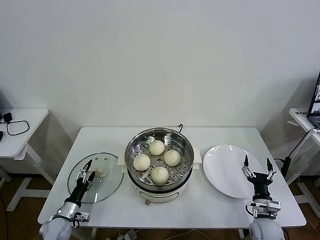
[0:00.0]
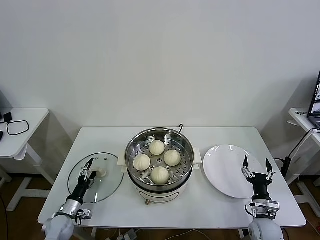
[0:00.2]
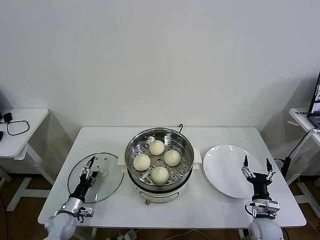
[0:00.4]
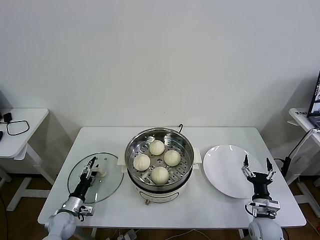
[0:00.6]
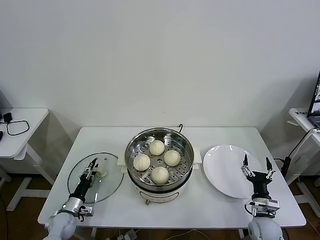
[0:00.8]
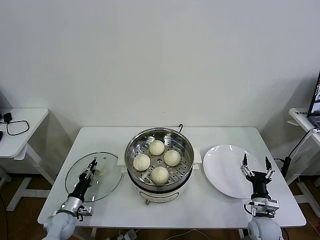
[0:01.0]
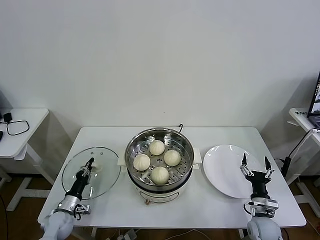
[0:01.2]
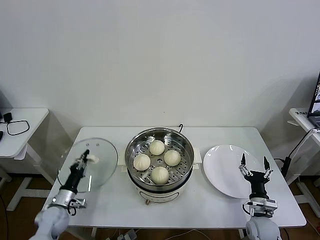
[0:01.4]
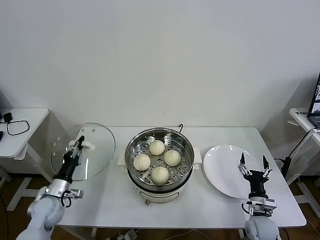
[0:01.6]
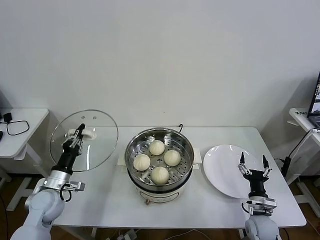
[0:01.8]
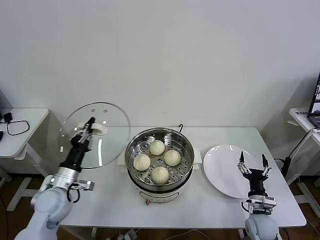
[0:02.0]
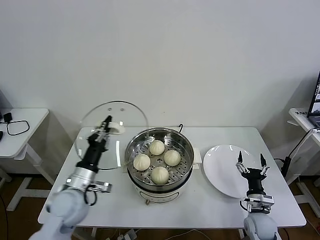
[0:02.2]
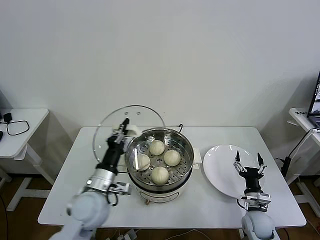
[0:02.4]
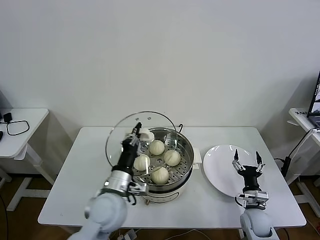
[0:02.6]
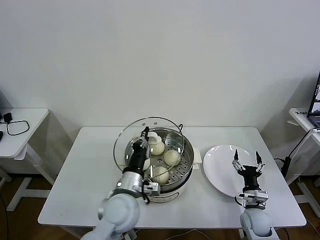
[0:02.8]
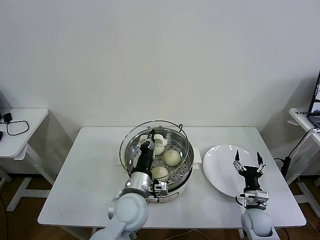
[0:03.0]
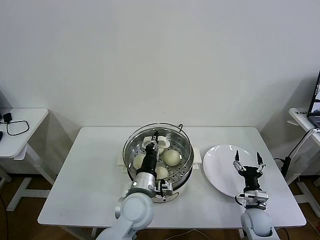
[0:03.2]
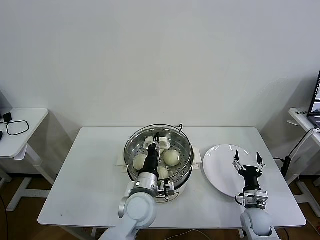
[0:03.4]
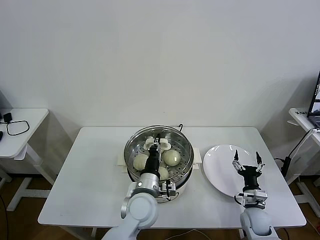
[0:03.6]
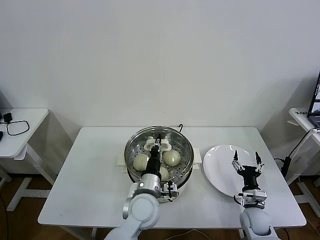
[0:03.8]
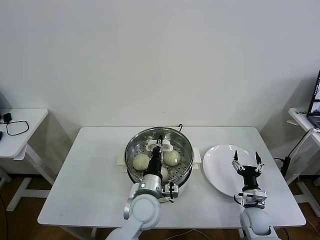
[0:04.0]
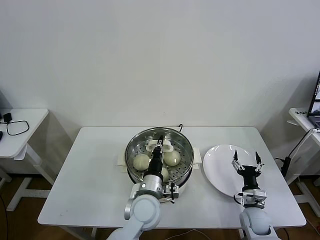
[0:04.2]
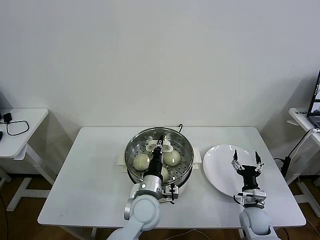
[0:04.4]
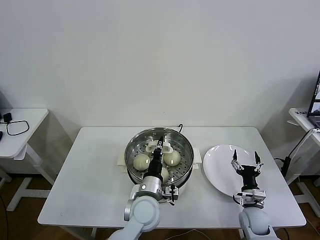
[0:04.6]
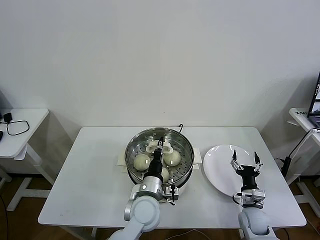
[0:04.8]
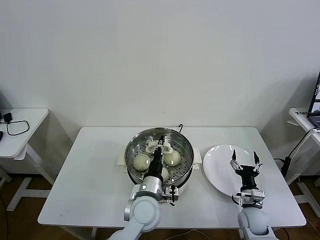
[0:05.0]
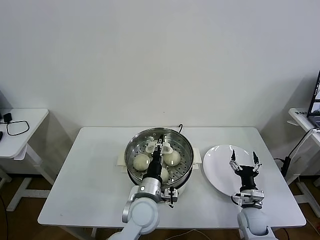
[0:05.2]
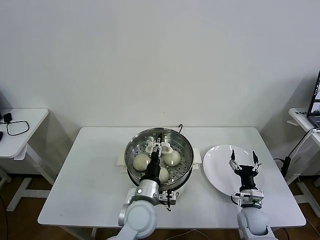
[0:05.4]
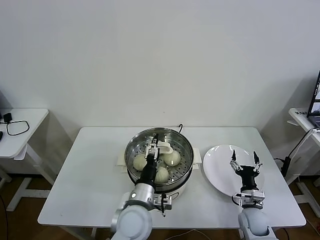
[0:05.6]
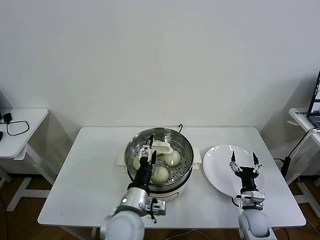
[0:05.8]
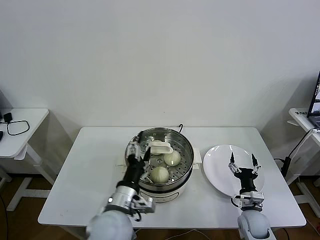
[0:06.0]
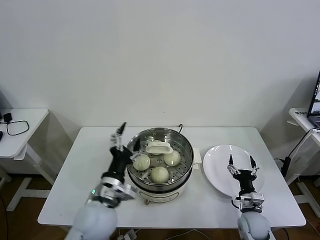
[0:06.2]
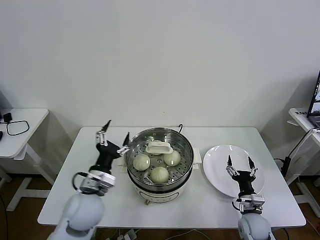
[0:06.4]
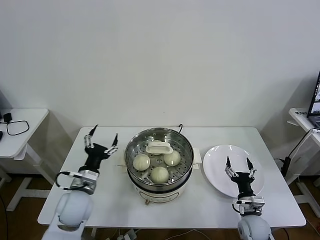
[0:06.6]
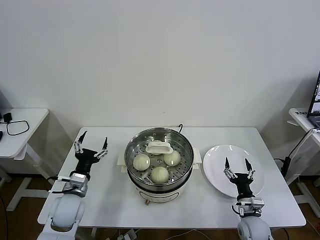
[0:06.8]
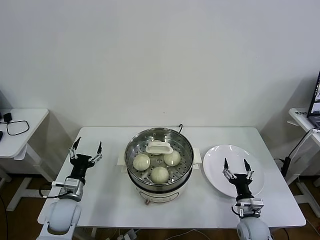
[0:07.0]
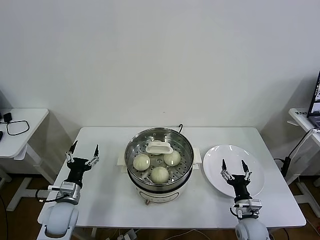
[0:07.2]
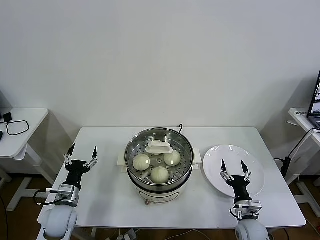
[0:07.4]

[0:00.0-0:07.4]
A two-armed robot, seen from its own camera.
Task of the whole recording: take steamed baozi put them in steamer then cover it.
Step, 1.4 to 5.4 s: Place the pot lid on the steamer with left gripper.
0.0 to 1.4 s: The left gripper shifts by about 5 cm, and closes its fingers.
1.4 to 3.0 s: The left gripper heads to the right and upward, covering about 35 cm.
3.0 to 4.4 s: The left gripper moves about 5 cm.
4.4 to 6.0 s: The left gripper travels backward, to the left and upward by approximately 10 cm, and opens its fingers.
6.0 to 7.4 s: The left gripper moves to the left and downward, approximately 25 cm.

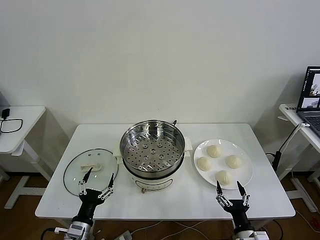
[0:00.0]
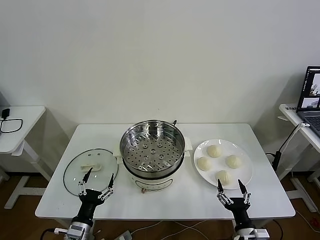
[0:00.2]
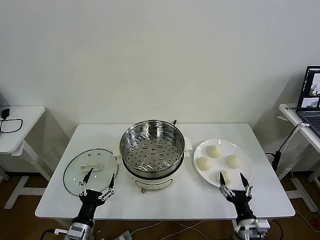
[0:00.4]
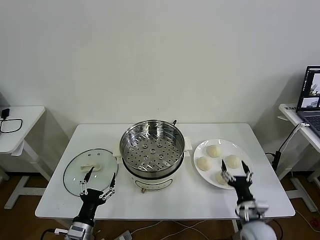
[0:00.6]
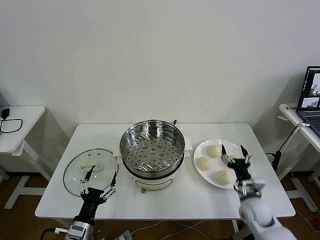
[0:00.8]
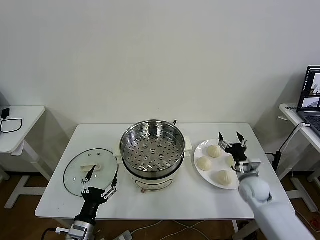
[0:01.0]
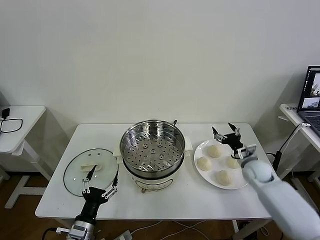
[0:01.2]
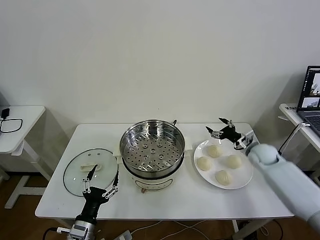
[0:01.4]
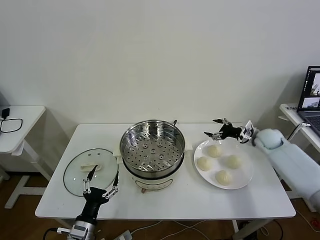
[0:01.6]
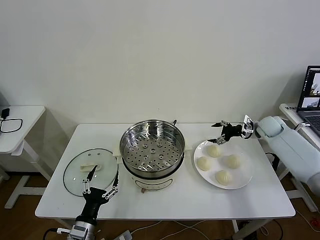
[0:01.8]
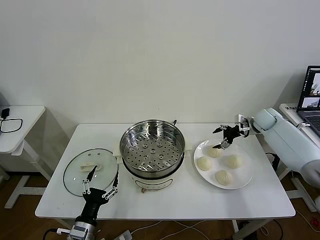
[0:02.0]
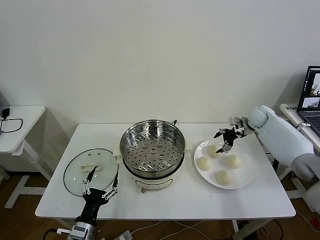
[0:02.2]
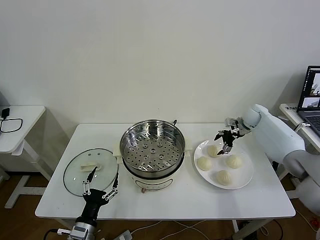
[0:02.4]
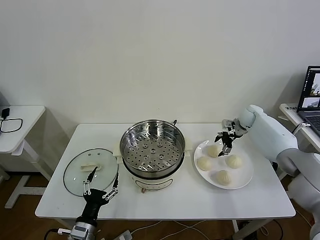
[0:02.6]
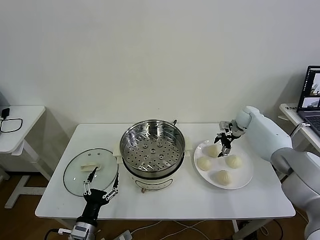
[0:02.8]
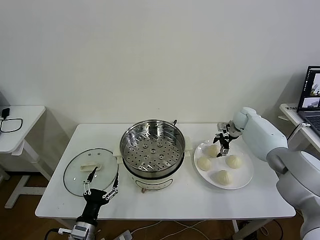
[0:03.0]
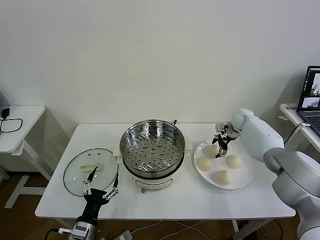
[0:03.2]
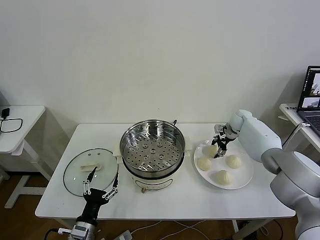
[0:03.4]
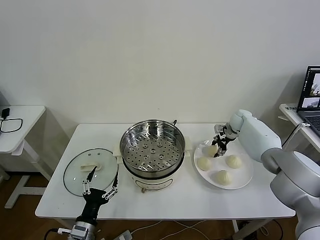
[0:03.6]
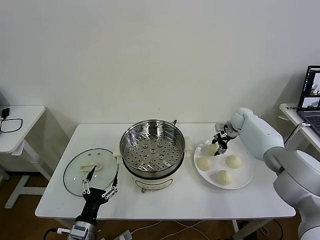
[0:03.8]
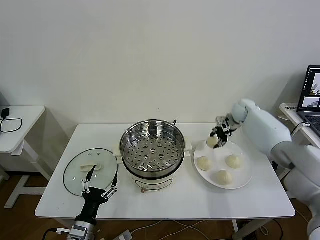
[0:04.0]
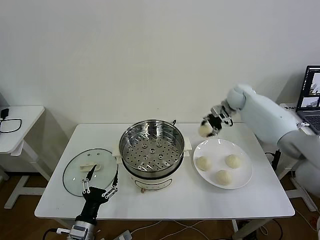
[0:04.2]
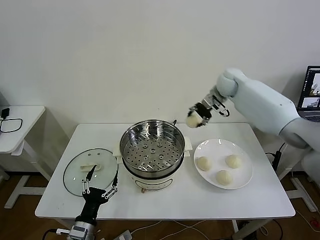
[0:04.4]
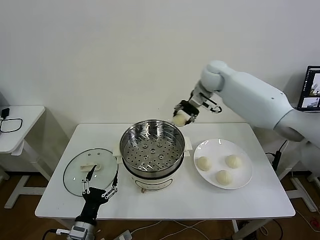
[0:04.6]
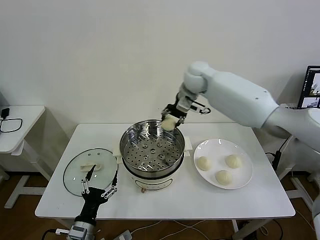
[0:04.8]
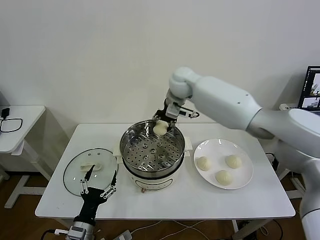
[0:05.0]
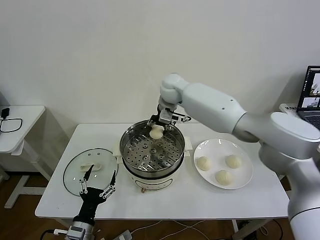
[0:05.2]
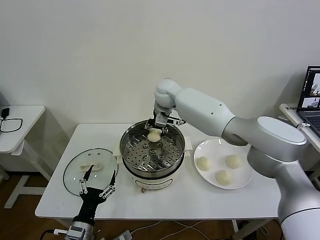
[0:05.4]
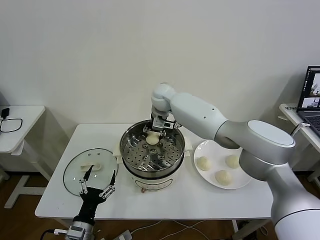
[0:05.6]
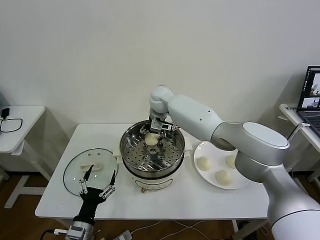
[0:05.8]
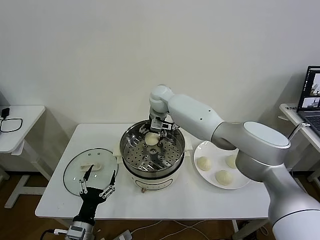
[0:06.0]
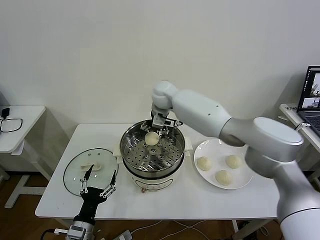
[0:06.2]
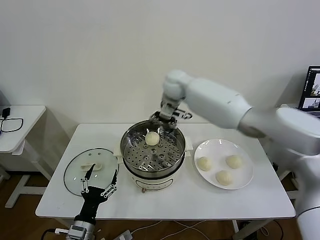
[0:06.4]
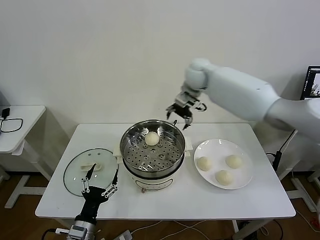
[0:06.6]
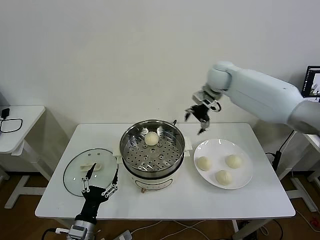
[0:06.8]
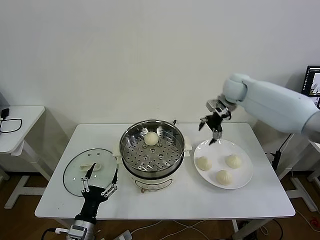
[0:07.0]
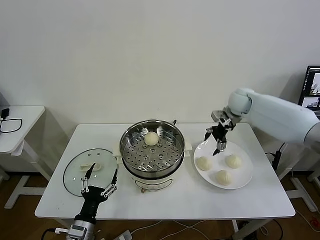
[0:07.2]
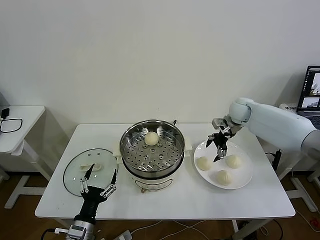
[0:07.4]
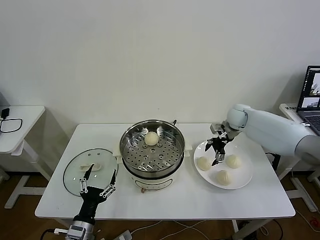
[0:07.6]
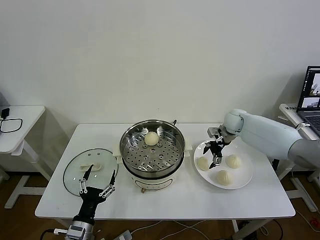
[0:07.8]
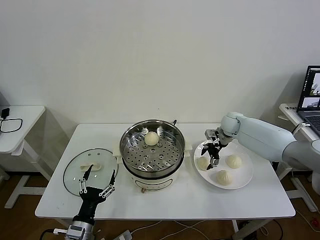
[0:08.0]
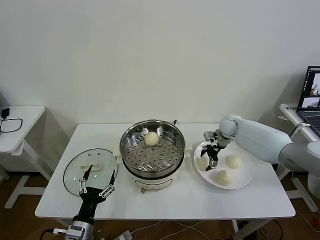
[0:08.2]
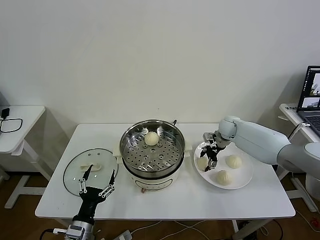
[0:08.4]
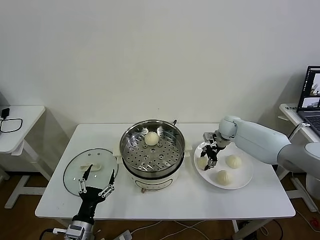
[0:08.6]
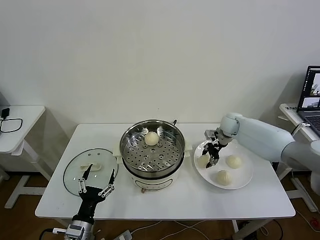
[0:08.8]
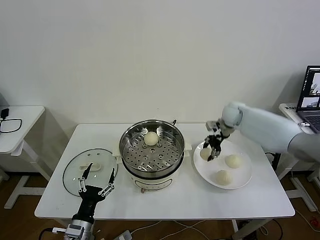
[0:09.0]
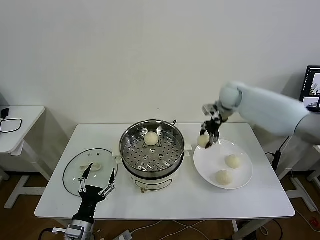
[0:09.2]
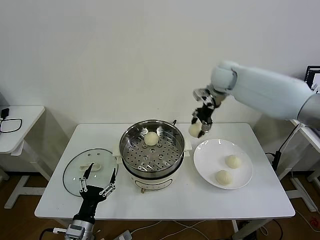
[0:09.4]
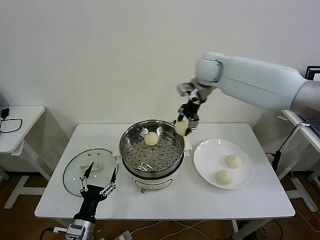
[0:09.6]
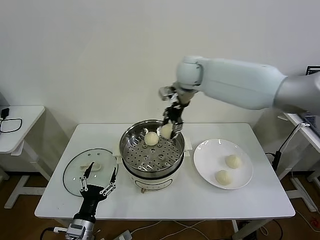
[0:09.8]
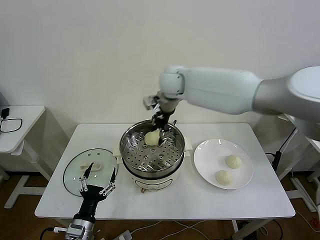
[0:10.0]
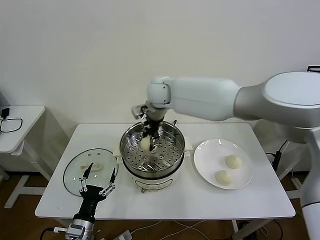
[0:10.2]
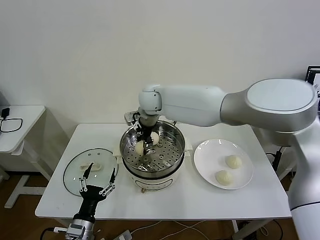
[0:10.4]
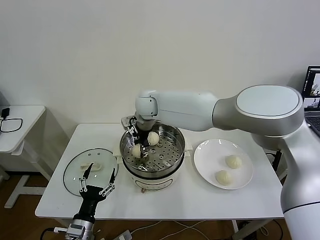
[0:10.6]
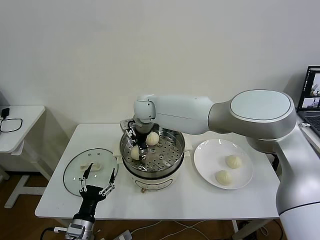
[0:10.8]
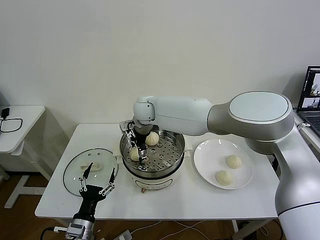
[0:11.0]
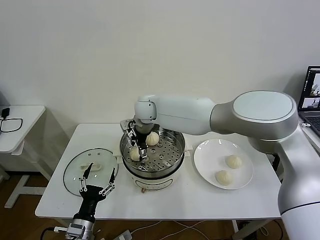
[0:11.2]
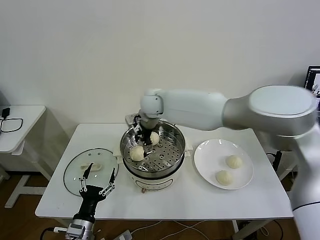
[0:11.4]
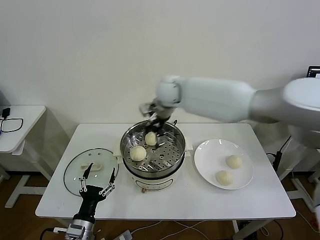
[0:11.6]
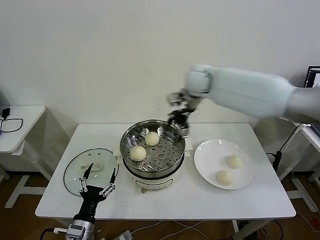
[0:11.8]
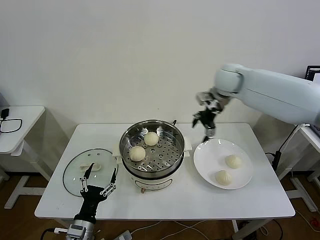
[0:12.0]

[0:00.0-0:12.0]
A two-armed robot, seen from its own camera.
Task of the whole recording: take steamed baozi put them in steamer then cover it.
Step, 0.0 to 3.6 s: Grasp the baozi in the plate with right gripper.
Step, 3.8 to 6.4 s: Place the baozi on the steamer with right gripper.
Step, 6.6 to 8.6 s: Grasp the baozi in the plate with right gripper.
Step, 8.8 to 11.4 s: Place the baozi on the steamer with right gripper.
1.6 to 3.0 s: The right gripper moves forward and to the left, roughly 10 cm.
3.0 to 4.4 s: The right gripper is displaced upward and to the left by approximately 25 cm, and closes up.
4.4 to 6.0 s: The right gripper moves to the left, about 20 cm, and opens its fingers.
6.0 to 7.6 s: The right gripper travels to the right by some 30 cm.
7.6 to 9.0 s: The right gripper heads upward, covering roughly 5 cm, and closes its fingers.
9.0 to 10.4 s: The right gripper moves to the left, some 30 cm.
10.4 to 12.0 s: The right gripper travels to the right by roughly 30 cm, and opens up.

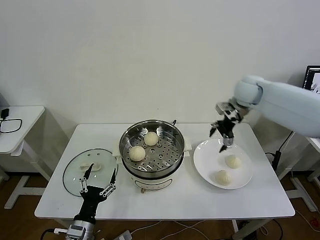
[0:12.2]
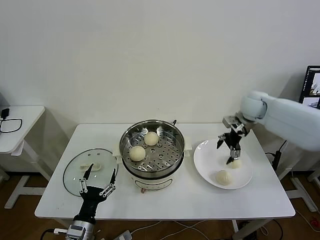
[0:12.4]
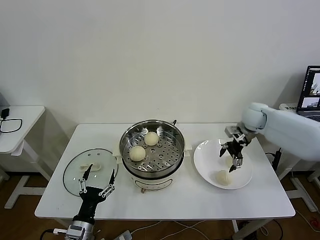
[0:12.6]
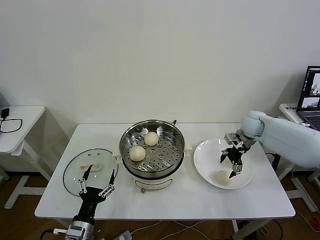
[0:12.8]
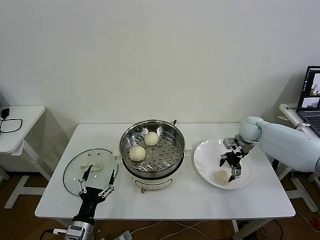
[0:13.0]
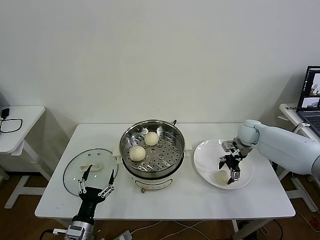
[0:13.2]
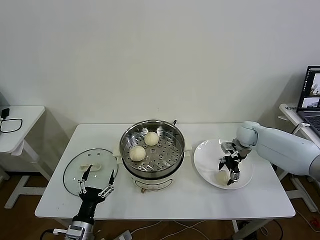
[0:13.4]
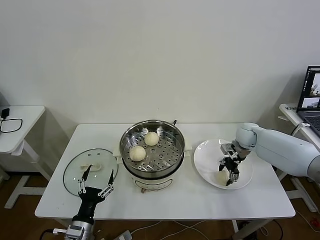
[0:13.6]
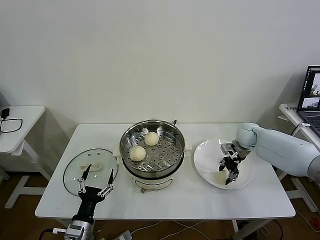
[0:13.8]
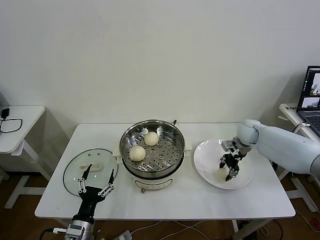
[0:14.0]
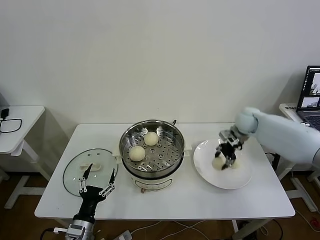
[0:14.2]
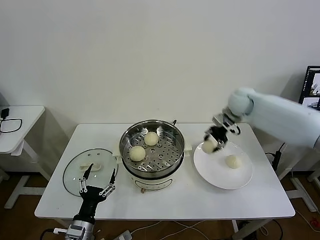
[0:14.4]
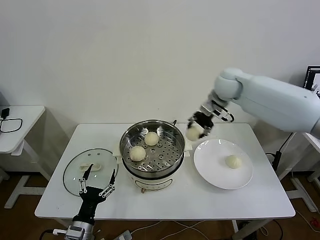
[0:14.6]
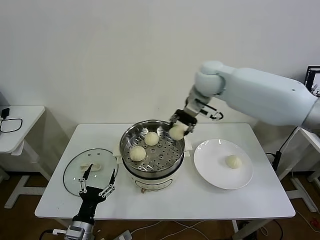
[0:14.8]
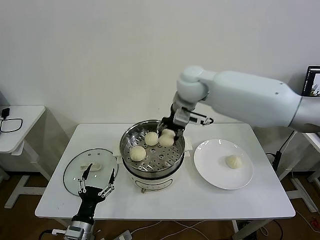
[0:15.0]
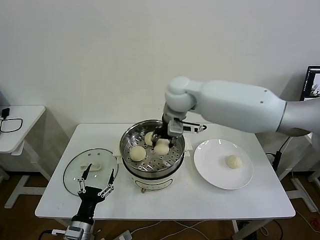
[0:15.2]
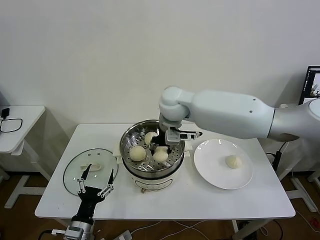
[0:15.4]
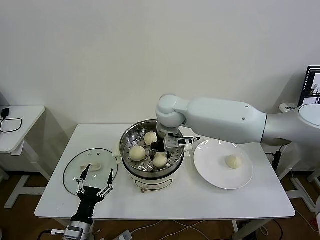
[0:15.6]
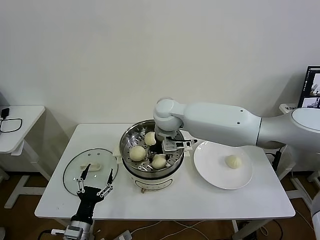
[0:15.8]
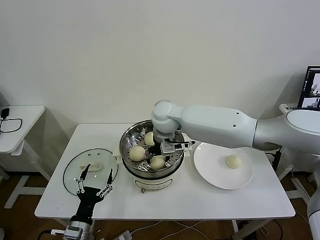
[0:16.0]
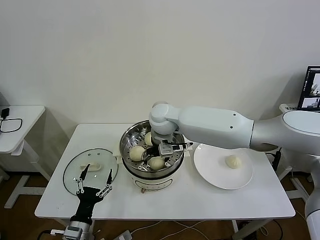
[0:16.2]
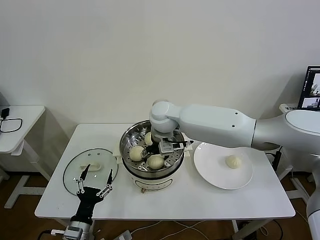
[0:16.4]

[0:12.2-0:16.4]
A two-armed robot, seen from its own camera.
Task of the whole recording: take steamed baozi put them in steamer then cover it.
Step, 12.2 to 14.0 s: Grasp the baozi in the plate with right gripper.
12.2 to 13.6 s: The right gripper shifts some 15 cm downward, and closes up.
13.6 to 15.0 s: The right gripper is displaced to the left and upward by about 35 cm, and closes.
15.0 to 16.4 s: The right gripper travels downward and to the left by about 10 cm, and opens.
